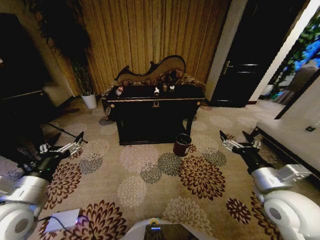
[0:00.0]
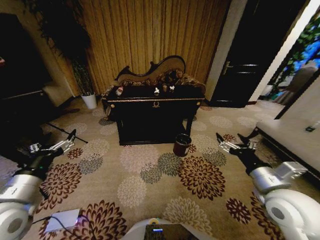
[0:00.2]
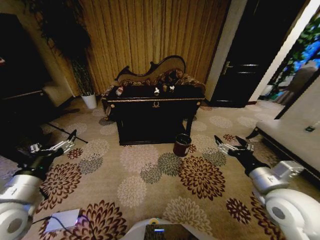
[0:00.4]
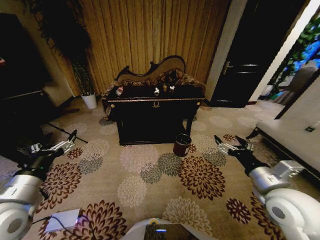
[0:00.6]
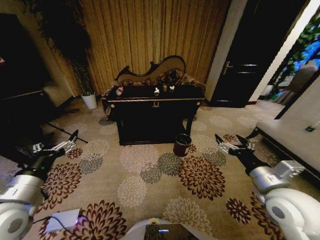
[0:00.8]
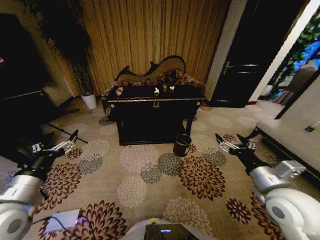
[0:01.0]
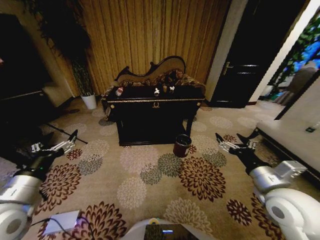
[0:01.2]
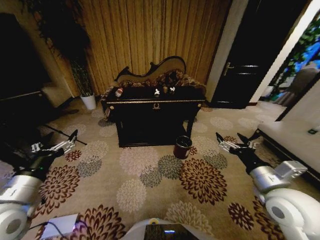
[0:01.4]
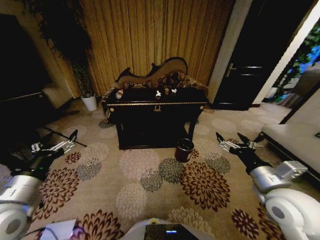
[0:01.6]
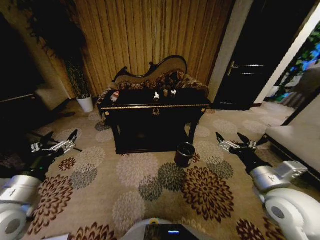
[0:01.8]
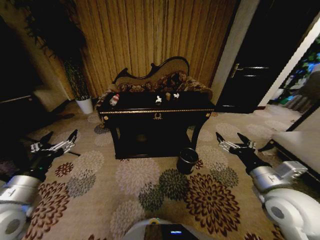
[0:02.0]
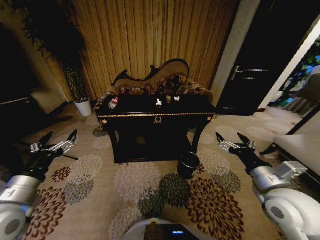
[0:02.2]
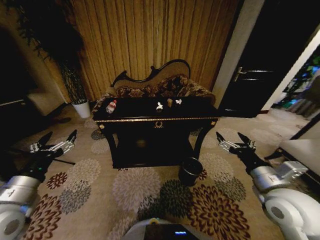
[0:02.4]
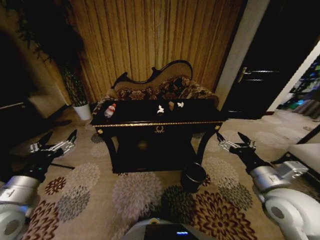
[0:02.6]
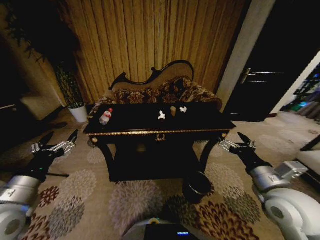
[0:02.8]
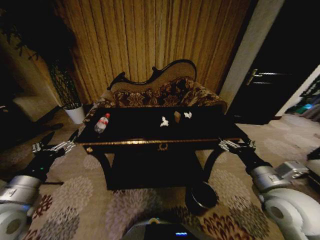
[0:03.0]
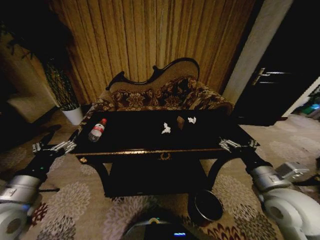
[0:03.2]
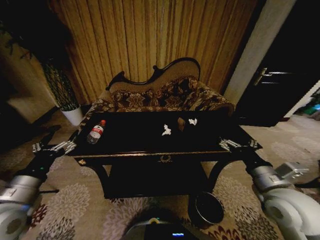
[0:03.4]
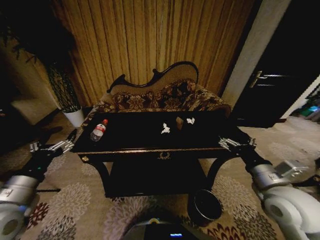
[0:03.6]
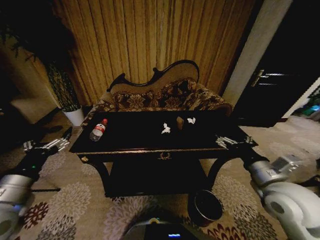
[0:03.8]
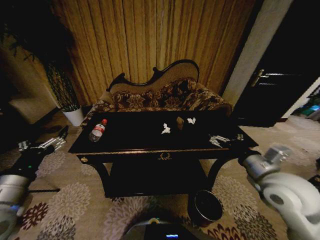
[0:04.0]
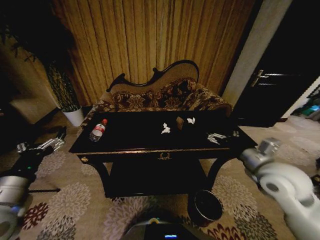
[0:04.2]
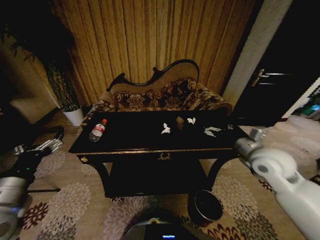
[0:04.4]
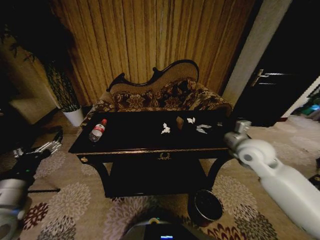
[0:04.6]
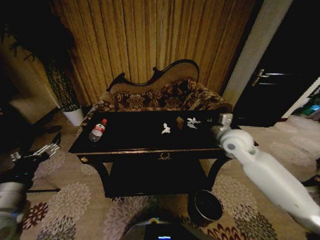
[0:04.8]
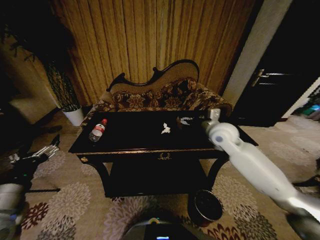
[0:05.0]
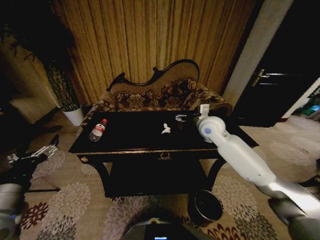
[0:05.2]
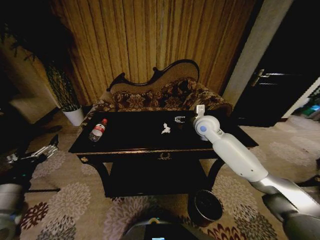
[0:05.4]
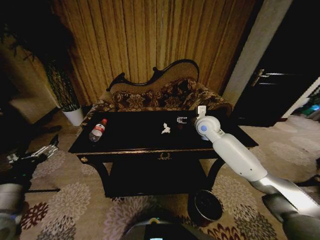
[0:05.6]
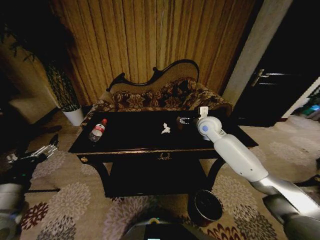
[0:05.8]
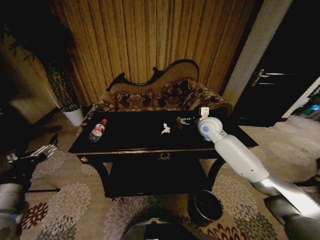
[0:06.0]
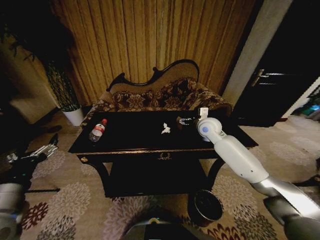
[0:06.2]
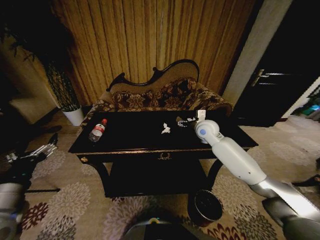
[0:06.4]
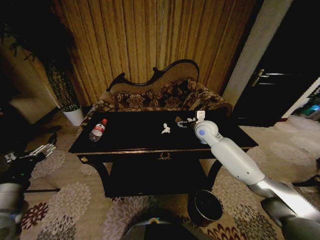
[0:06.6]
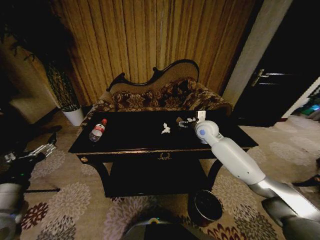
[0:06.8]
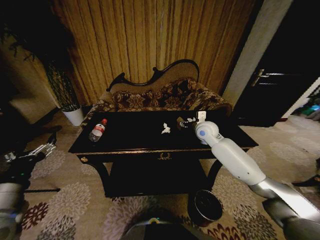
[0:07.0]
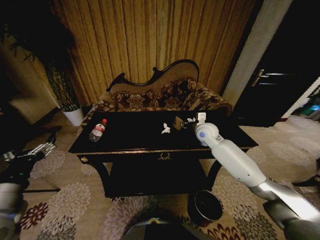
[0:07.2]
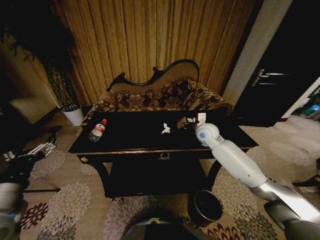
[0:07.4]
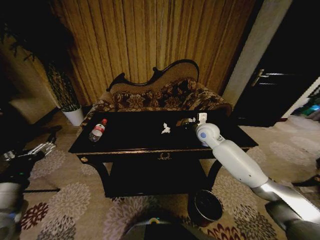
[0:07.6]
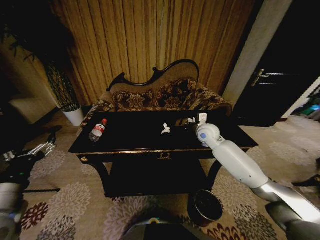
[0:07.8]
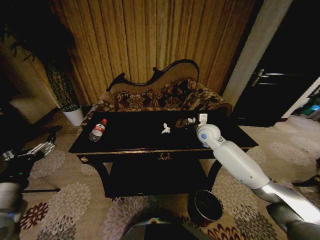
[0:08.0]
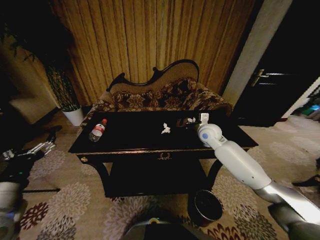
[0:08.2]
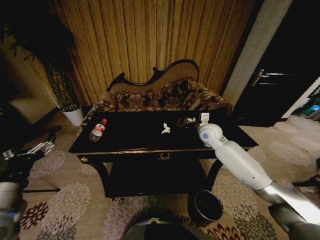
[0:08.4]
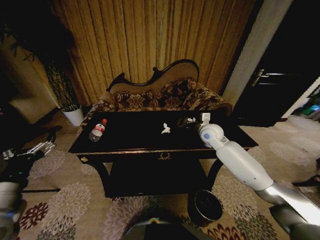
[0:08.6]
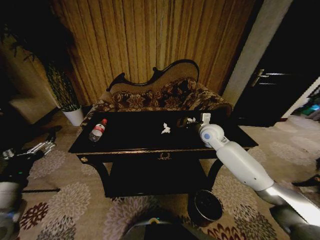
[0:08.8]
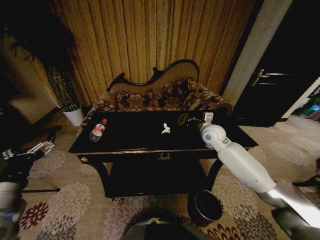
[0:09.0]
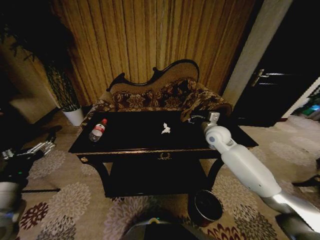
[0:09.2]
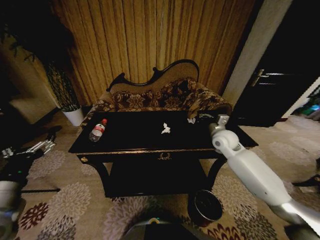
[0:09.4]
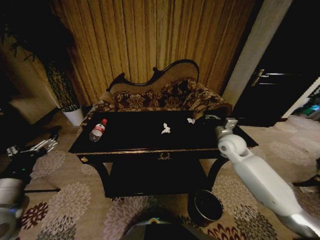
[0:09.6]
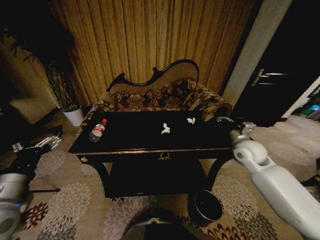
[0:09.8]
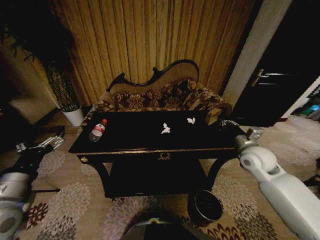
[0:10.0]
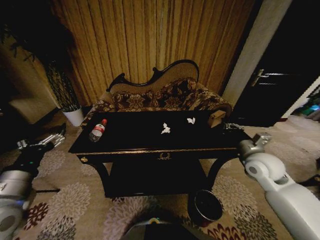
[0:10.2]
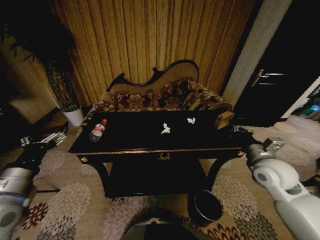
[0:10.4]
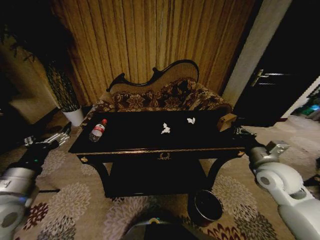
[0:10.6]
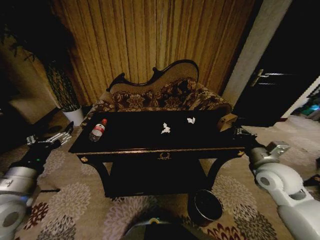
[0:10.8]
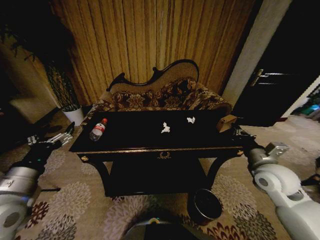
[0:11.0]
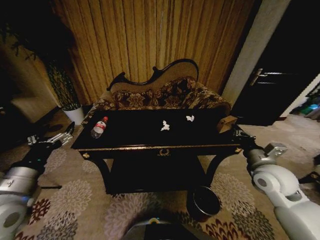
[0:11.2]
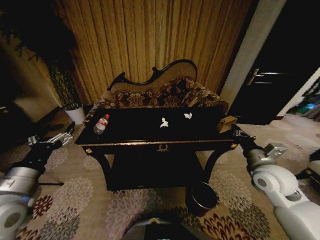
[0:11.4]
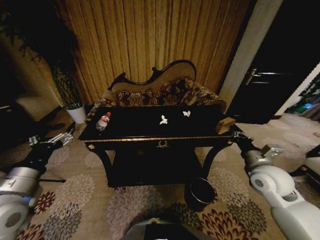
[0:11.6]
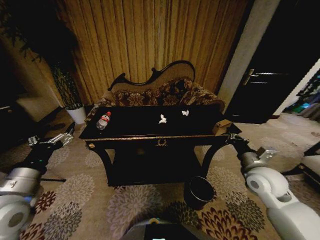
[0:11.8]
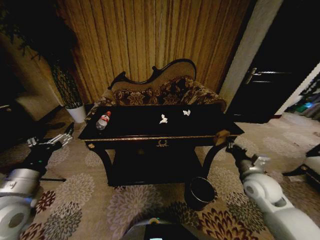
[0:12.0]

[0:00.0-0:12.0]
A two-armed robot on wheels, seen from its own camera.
Task of the whole recording: Move to the front of the table and place the trash on the table into the trash bin.
0:03.0 to 0:04.4: The right gripper travels forward by about 10 cm.
0:04.4 to 0:06.0: The right gripper is displaced forward and to the left by about 20 cm.
0:06.0 to 0:07.6: The right gripper closes its fingers.
0:07.6 to 0:09.0: There are only small adjustments of the grippers.
0:09.0 to 0:10.4: The right gripper moves backward and to the right, some 20 cm.
0:10.4 to 0:12.0: The right gripper moves downward, roughly 5 cm.

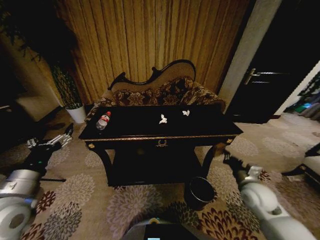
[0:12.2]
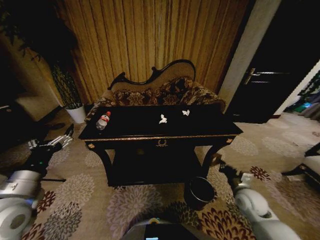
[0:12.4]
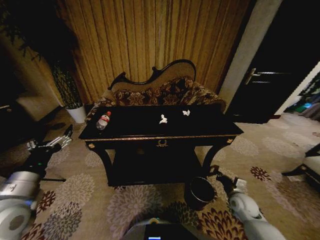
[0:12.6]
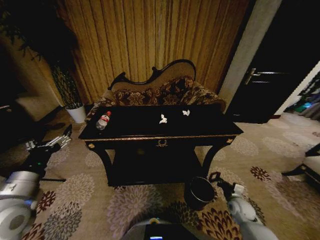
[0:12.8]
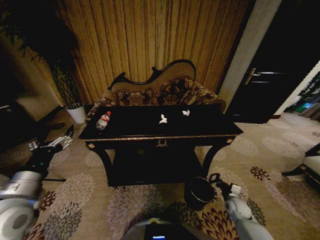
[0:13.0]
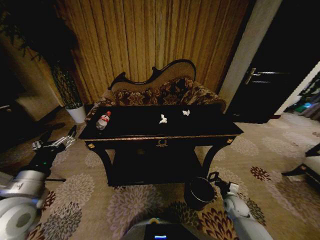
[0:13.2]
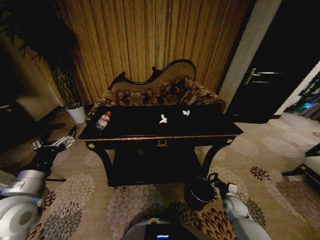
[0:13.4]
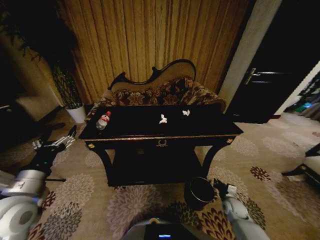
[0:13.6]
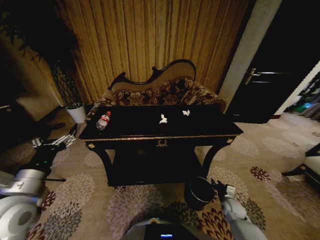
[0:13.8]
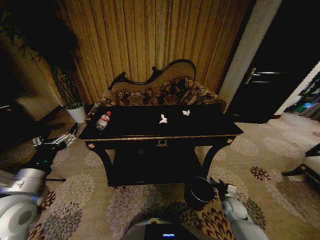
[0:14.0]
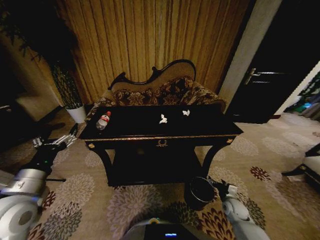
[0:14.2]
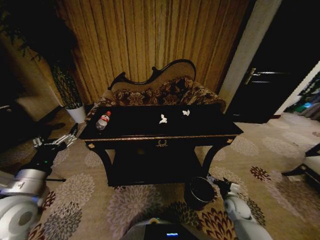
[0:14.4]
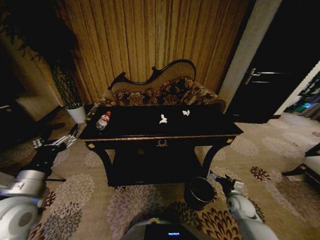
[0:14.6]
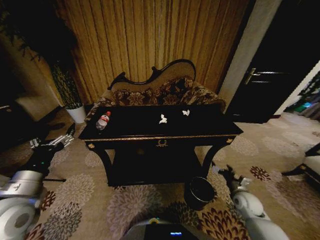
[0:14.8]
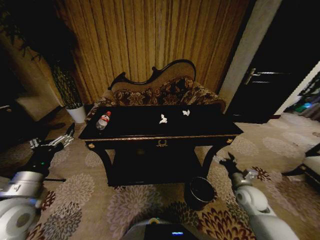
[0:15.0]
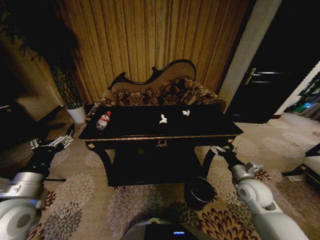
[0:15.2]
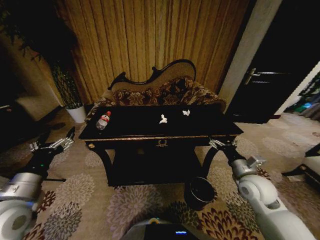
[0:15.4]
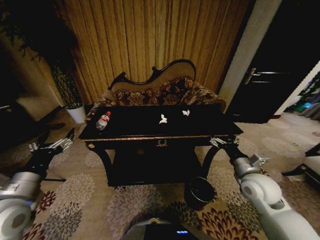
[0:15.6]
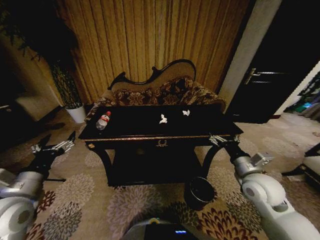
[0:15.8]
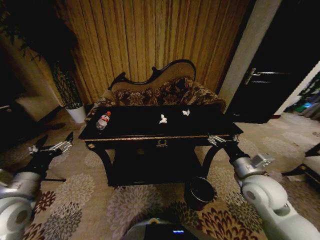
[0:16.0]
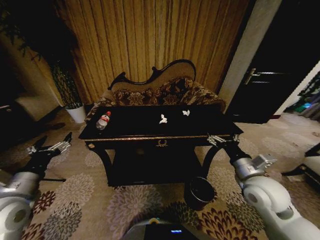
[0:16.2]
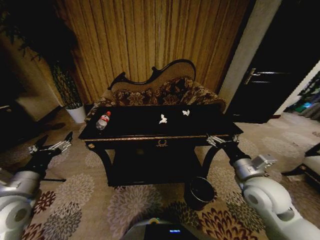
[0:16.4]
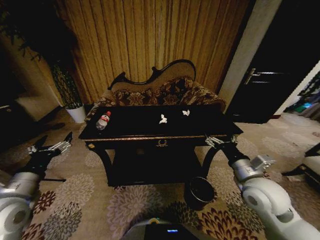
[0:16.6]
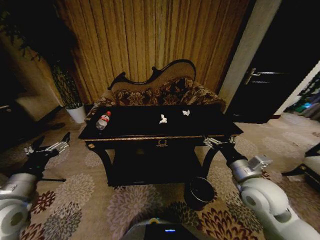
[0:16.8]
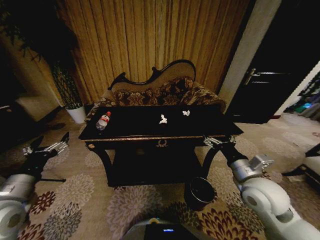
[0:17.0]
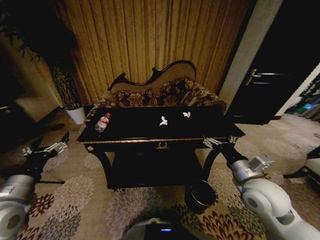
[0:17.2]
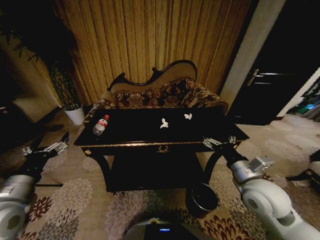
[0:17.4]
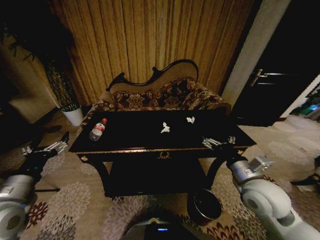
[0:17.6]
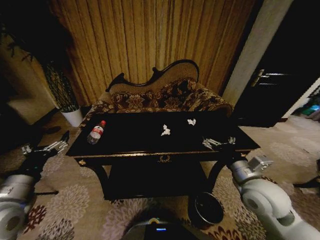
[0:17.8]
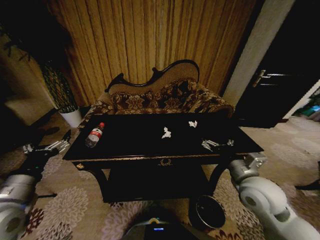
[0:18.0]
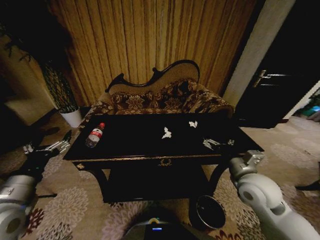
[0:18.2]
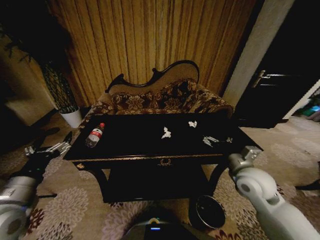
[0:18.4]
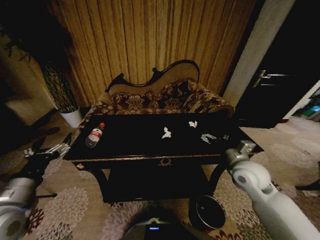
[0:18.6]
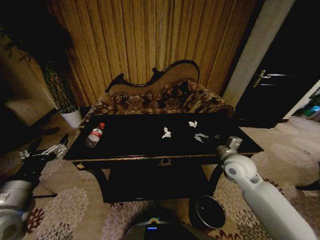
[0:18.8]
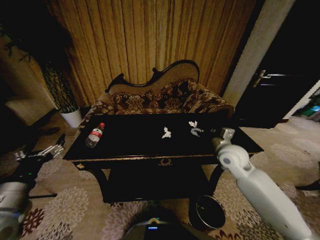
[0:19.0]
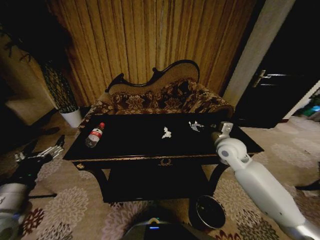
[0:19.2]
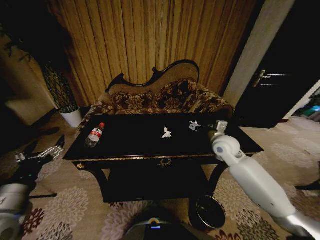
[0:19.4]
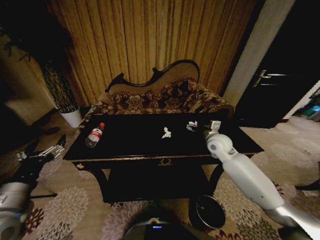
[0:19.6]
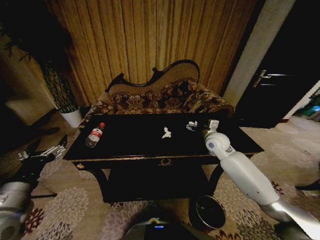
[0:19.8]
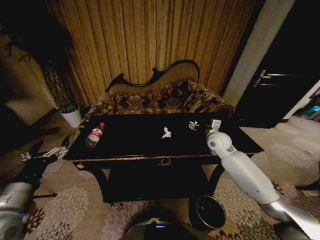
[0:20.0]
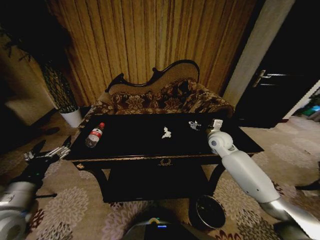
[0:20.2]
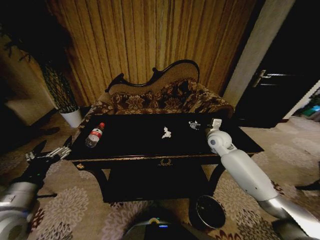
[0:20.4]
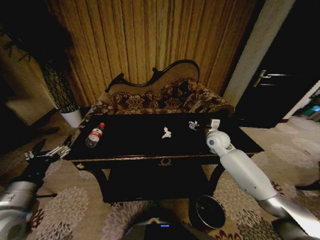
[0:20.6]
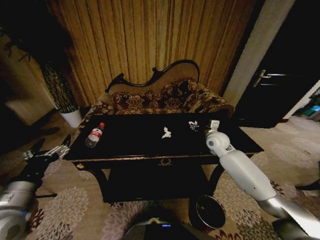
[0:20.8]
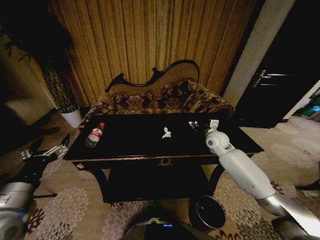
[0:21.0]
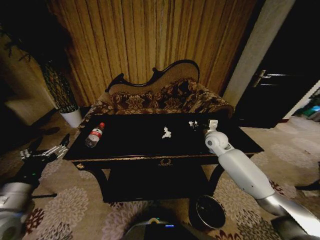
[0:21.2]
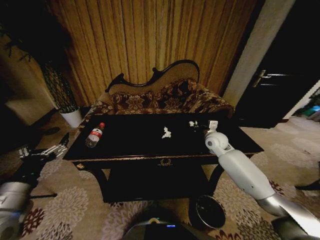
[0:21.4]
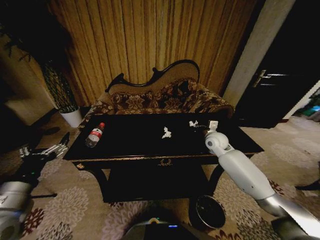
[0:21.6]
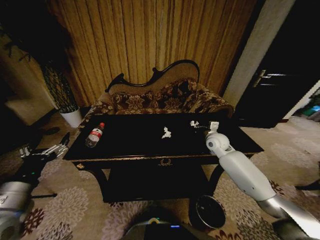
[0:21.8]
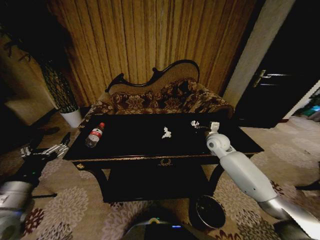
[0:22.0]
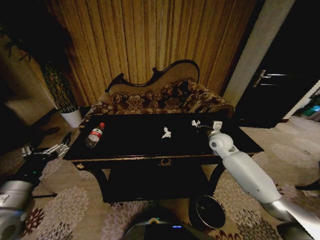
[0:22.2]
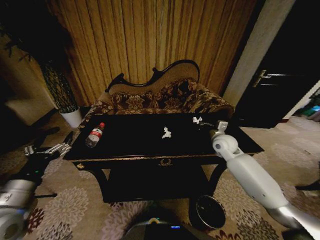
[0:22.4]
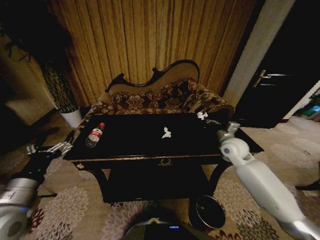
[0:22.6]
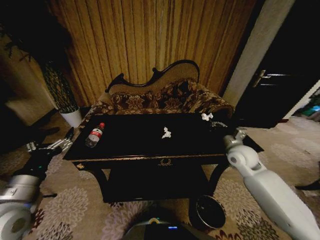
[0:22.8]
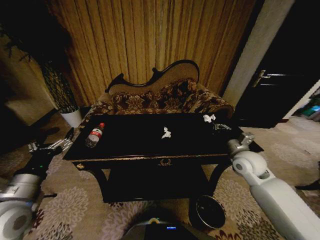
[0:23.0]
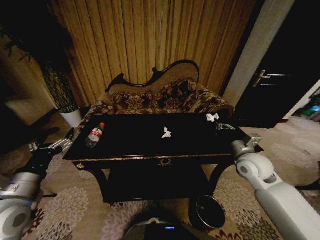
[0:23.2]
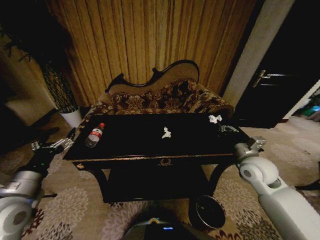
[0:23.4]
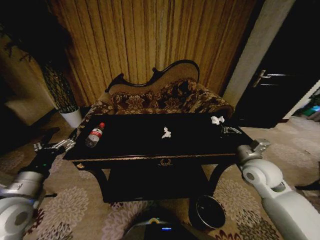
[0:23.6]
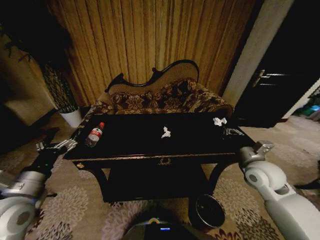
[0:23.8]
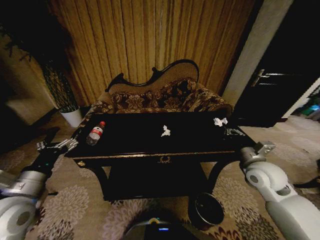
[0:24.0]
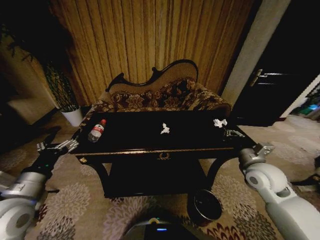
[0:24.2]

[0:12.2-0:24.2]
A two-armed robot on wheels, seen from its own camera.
Task of the whole recording: Move to the front of the table and place the trash on the table into the trash bin.
0:12.2 to 0:13.8: The right gripper travels downward by approximately 20 cm, and opens up.
0:13.8 to 0:15.2: The right gripper travels upward by some 20 cm, and opens its fingers.
0:15.2 to 0:16.6: The right gripper moves upward and to the left, roughly 10 cm.
0:18.2 to 0:19.8: The right gripper shifts about 20 cm forward.
0:19.8 to 0:21.2: The right gripper closes its fingers.
0:21.2 to 0:22.6: The right gripper travels backward by about 5 cm, and closes.
0:22.6 to 0:24.2: The right gripper shifts about 15 cm backward.
